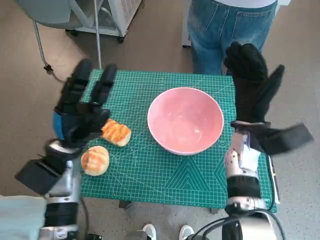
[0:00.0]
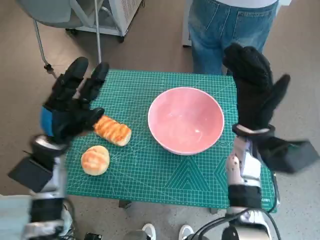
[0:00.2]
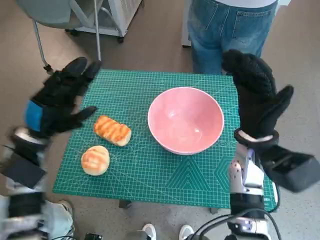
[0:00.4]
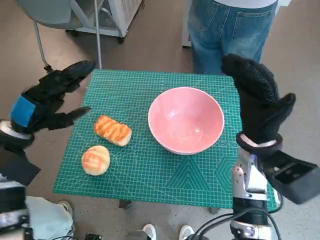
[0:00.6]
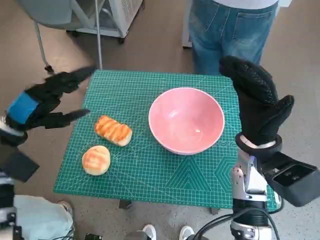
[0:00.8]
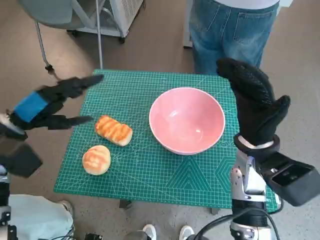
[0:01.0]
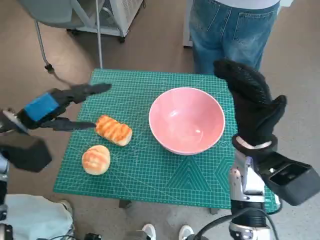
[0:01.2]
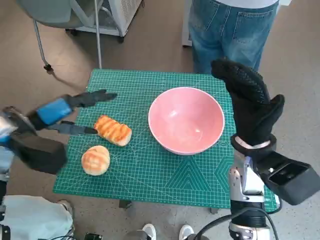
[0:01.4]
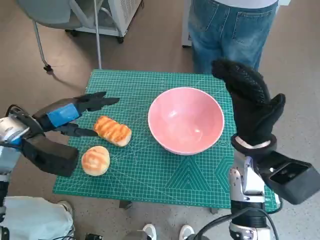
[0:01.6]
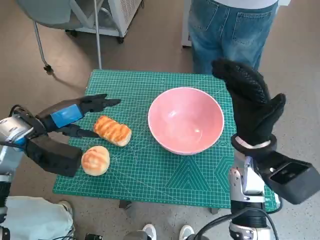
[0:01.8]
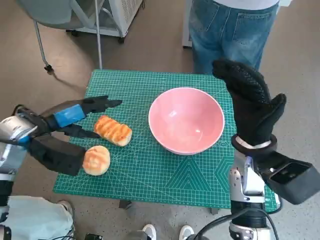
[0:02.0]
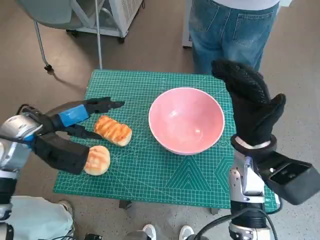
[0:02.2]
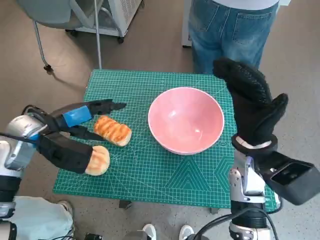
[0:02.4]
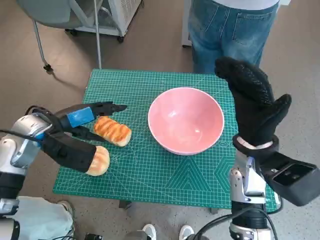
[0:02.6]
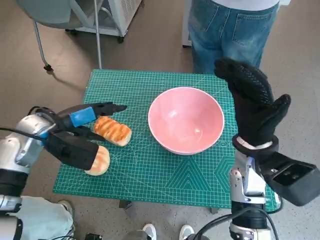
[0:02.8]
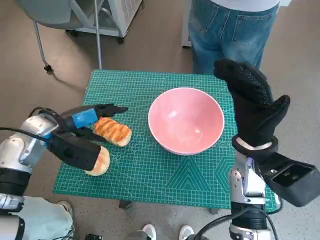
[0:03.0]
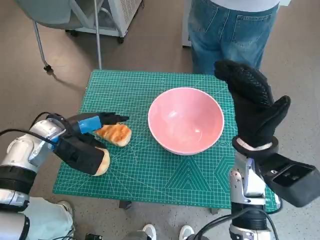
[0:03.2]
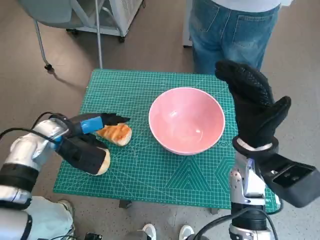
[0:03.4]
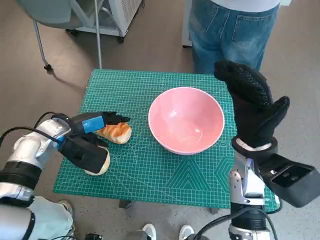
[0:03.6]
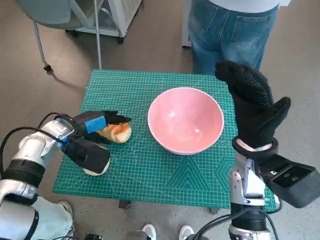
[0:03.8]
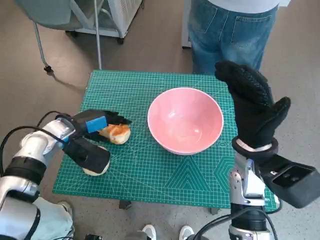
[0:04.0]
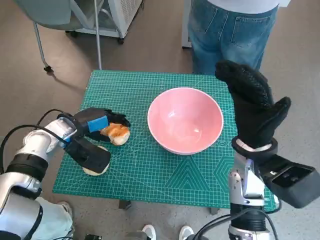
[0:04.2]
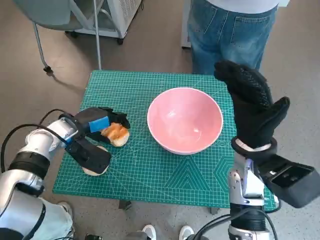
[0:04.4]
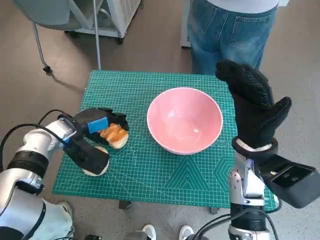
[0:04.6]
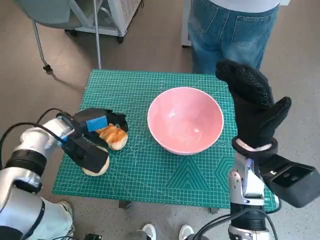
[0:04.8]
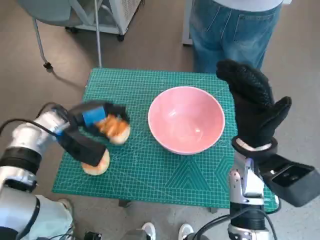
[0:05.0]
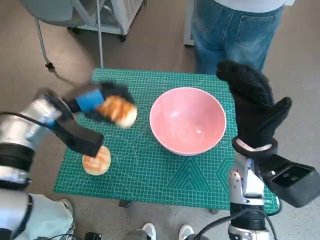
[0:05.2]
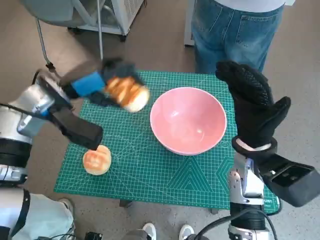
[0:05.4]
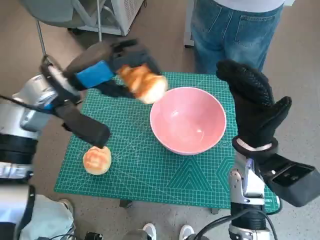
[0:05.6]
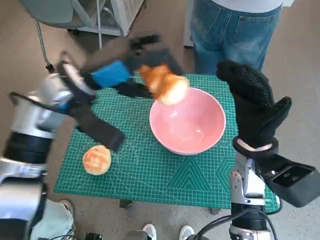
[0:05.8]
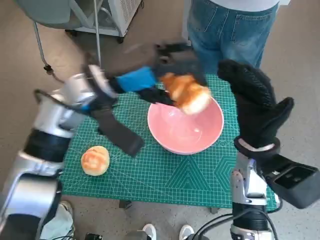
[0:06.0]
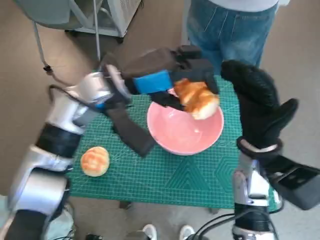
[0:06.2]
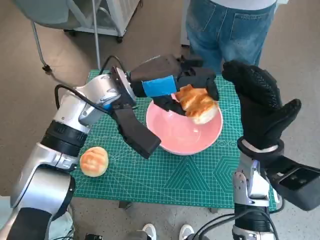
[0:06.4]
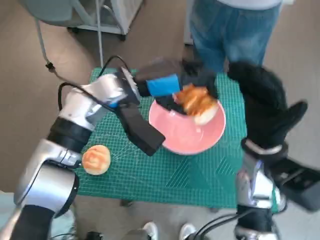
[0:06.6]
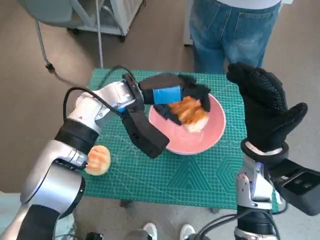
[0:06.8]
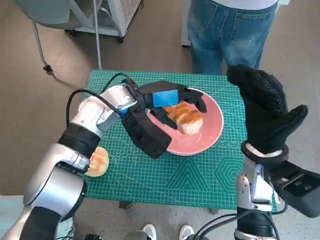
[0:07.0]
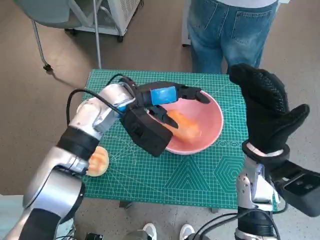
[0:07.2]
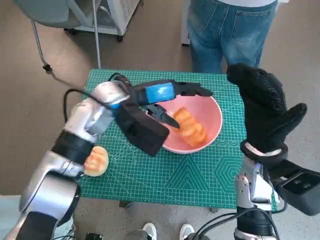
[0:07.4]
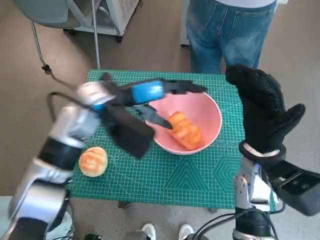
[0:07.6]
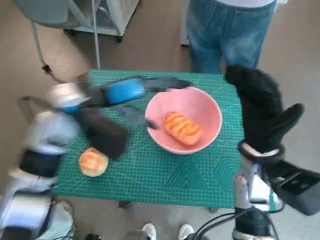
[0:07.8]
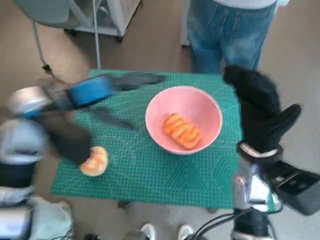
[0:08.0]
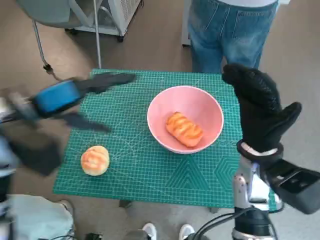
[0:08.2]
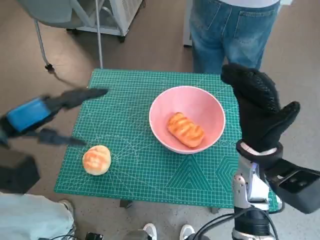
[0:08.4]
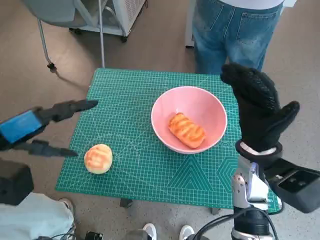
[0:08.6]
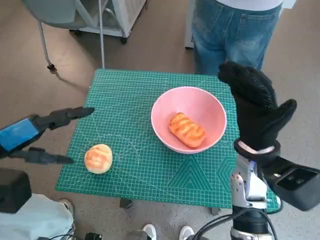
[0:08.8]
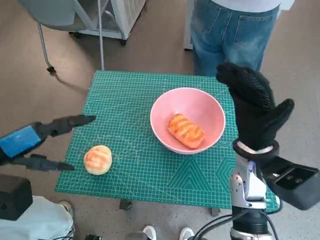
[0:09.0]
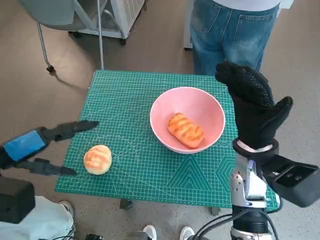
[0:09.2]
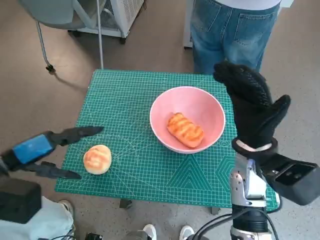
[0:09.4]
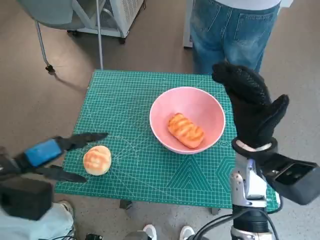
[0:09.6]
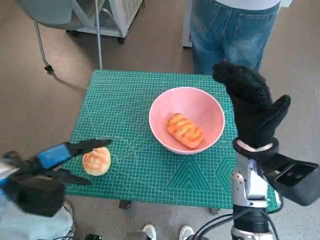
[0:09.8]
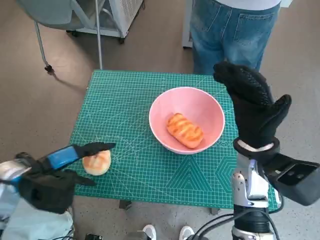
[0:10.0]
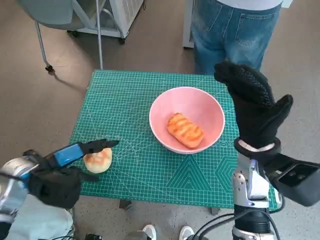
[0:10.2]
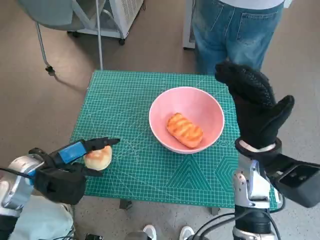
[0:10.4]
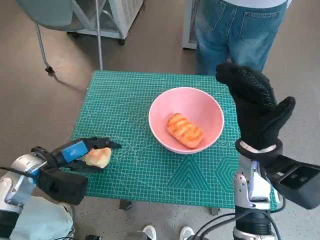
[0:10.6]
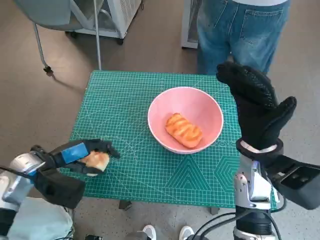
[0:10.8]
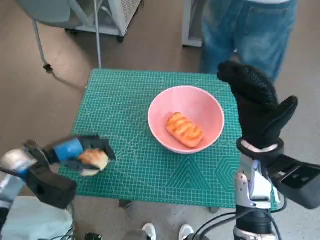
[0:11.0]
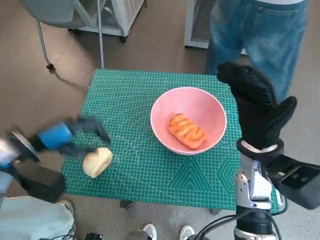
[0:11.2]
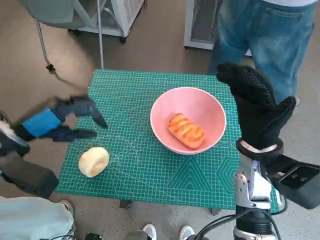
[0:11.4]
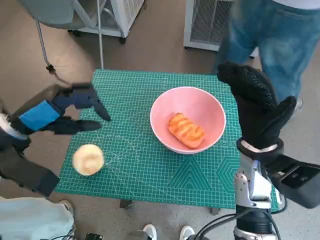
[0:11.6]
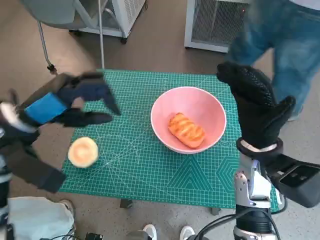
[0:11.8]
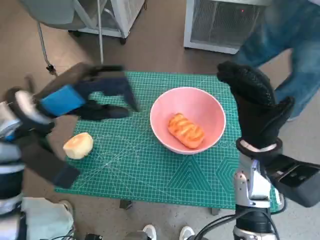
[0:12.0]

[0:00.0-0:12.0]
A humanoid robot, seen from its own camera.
Task of the whole recording: Push the bowl to the center of the table and put the bread into the bowl.
Step, 0:00.0 to 0:04.2: Grasp the long bread with left hand.
Step, 0:04.4 to 0:07.6: Place the long bread in pink bowl with left hand.
0:00.0 to 0:01.6: The right hand shifts by about 5 cm; the left hand is displaced upward and to the left by some 10 cm.
0:01.6 to 0:03.0: The hands stay close to where they were, moving slightly.
0:03.0 to 0:04.4: The left hand changes place by about 5 cm.
0:04.4 to 0:06.0: The left hand shifts about 15 cm upward and to the right.
0:07.6 to 0:09.0: The left hand shifts roughly 20 cm to the left and backward.
0:09.0 to 0:10.4: The left hand moves downward, about 10 cm.
0:10.4 to 0:12.0: The left hand heads upward and to the right, covering roughly 15 cm.

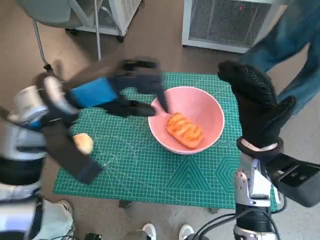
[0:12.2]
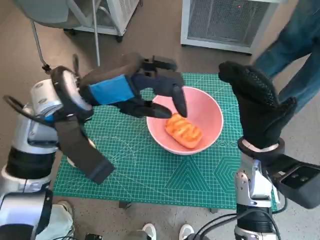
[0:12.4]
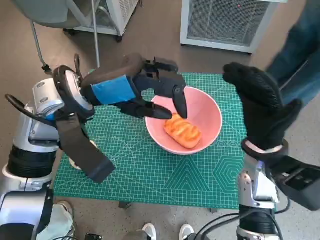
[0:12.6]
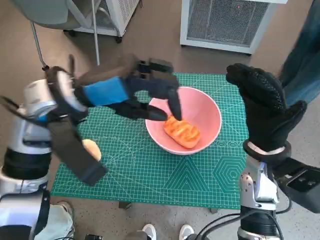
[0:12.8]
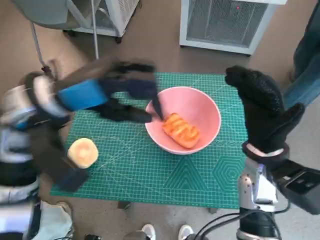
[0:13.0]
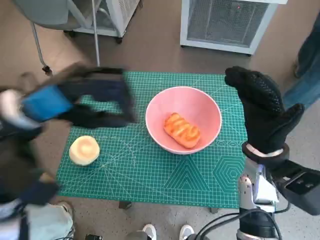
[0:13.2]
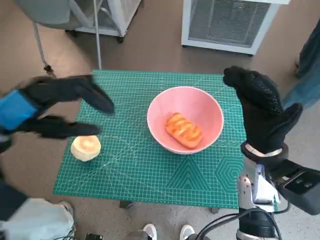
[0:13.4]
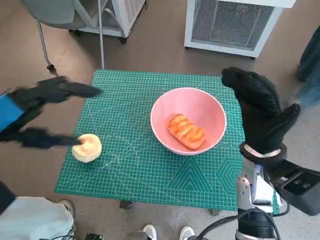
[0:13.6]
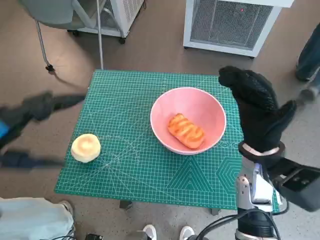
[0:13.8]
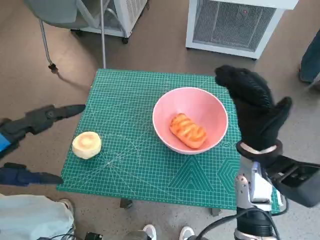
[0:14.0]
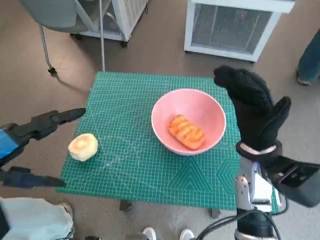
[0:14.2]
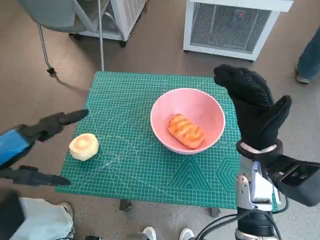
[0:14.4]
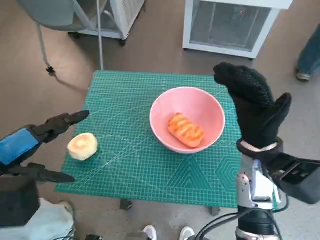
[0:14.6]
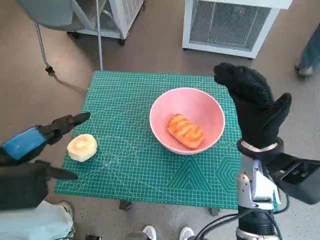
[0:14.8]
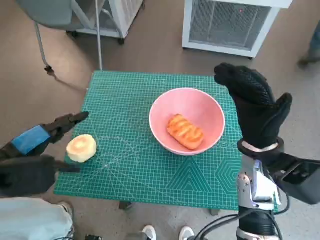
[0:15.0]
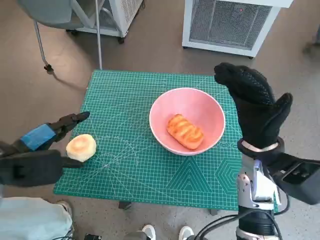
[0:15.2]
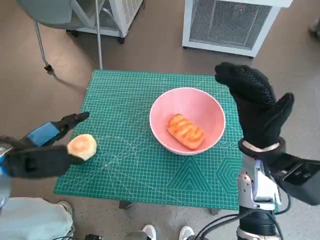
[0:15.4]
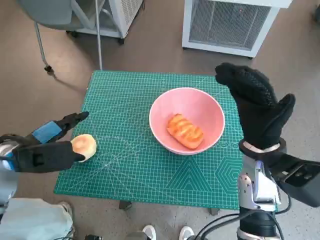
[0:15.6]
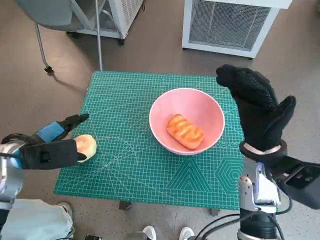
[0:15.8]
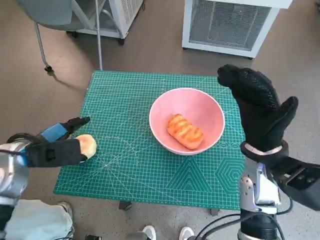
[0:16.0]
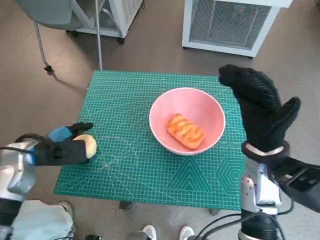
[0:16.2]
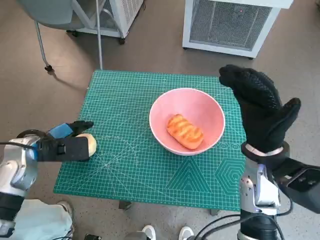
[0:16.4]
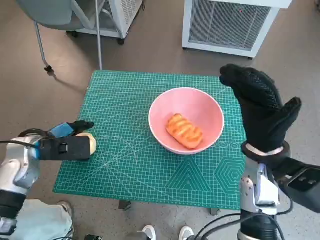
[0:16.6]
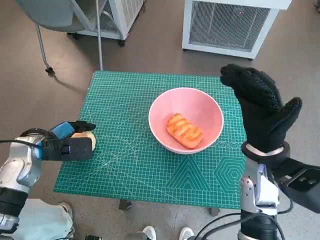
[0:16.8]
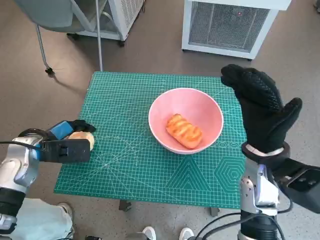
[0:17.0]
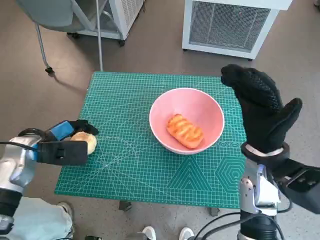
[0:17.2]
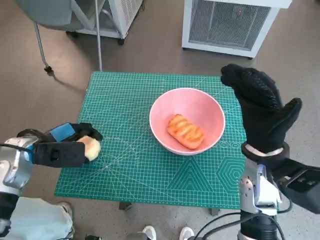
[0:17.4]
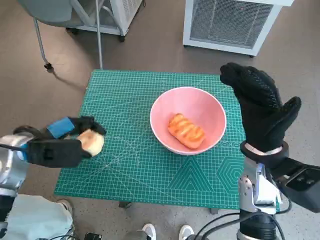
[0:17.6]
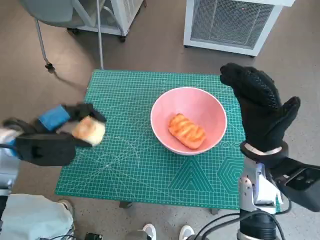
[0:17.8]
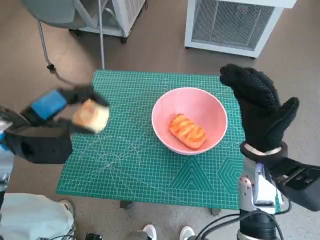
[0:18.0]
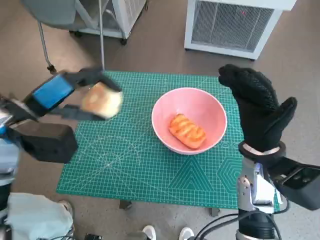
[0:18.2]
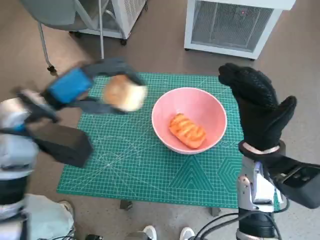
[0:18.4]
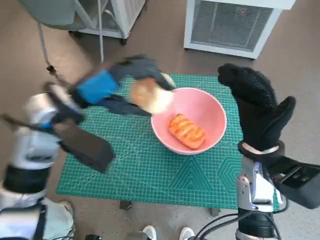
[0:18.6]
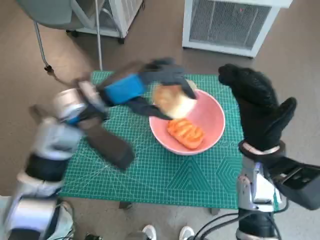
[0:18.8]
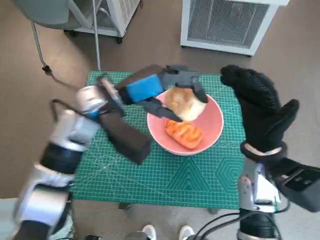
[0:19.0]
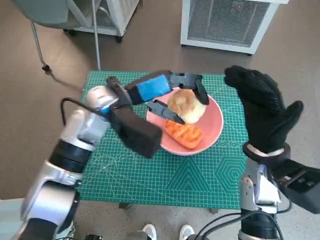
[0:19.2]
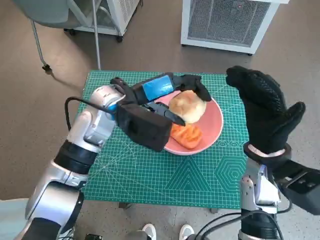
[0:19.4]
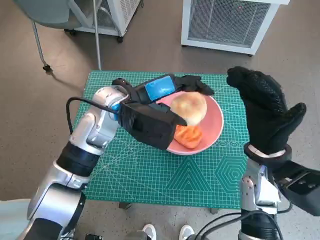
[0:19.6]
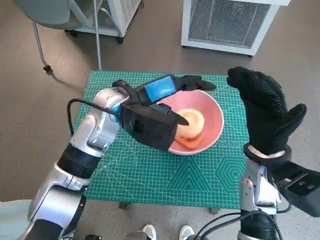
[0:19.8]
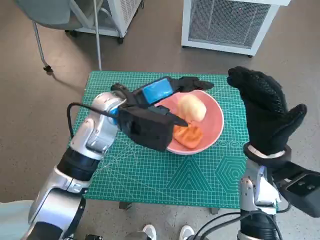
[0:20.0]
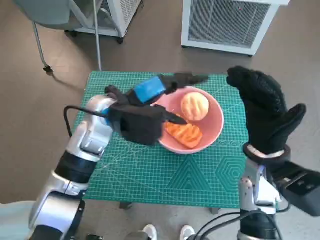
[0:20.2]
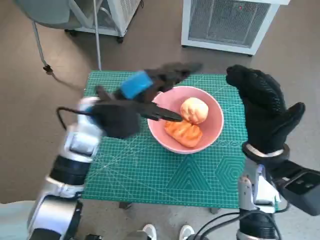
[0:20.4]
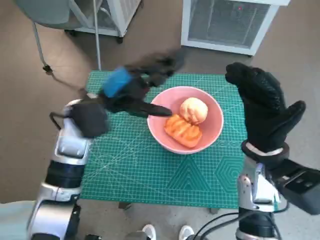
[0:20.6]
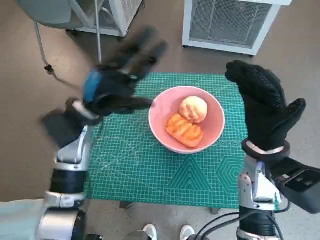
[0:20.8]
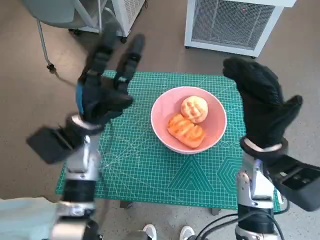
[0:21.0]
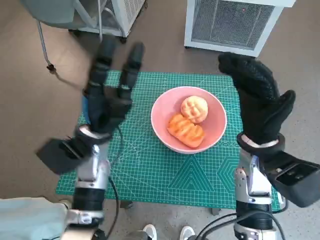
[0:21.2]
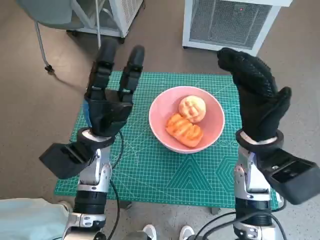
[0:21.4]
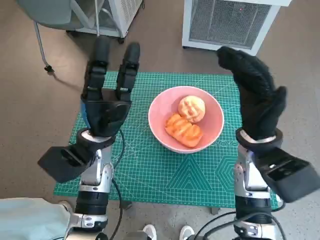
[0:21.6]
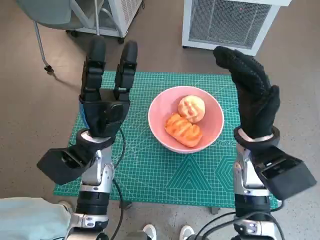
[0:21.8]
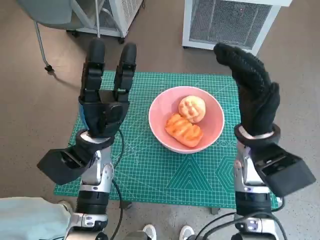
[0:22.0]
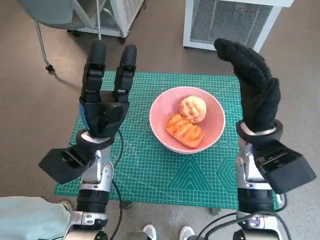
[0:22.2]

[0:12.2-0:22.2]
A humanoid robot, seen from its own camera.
Task of the whole recording: Push the bowl to the center of the table and put the bread into the bowl.
Step, 0:12.2 to 0:17.0: Grasp the round bread with left hand.
Step, 0:17.2 to 0:20.0: Place the round bread in pink bowl with left hand.
0:12.2 to 0:13.6: The left hand goes roughly 10 cm to the left and backward.
0:13.6 to 0:15.0: The left hand is displaced downward by about 5 cm.
0:15.0 to 0:16.4: The left hand travels downward and forward by approximately 10 cm.
0:16.4 to 0:18.0: The left hand travels upward by approximately 10 cm.
0:18.0 to 0:19.4: The left hand heads to the right and forward, covering about 20 cm.
0:19.4 to 0:20.8: The left hand moves to the left, about 5 cm.
0:20.8 to 0:22.2: The left hand goes some 5 cm downward.
